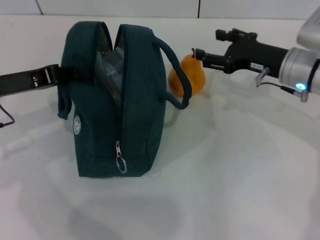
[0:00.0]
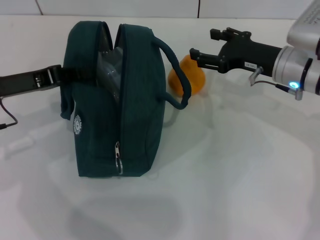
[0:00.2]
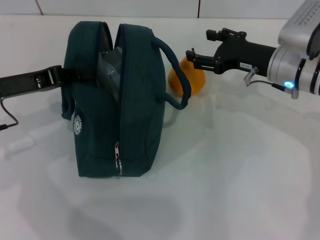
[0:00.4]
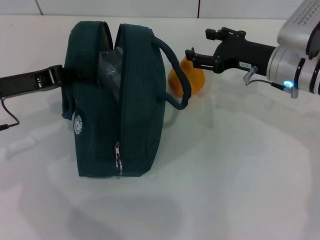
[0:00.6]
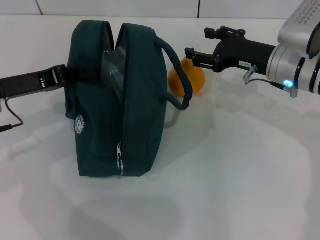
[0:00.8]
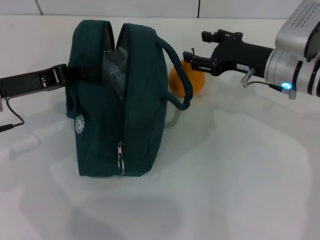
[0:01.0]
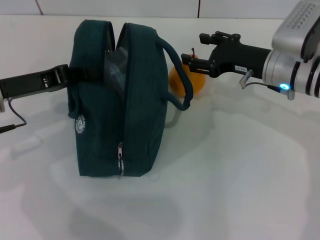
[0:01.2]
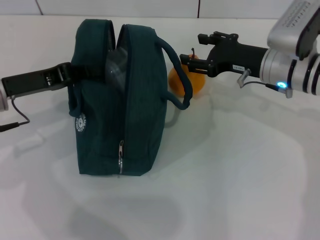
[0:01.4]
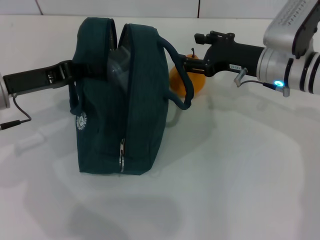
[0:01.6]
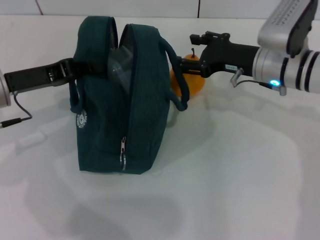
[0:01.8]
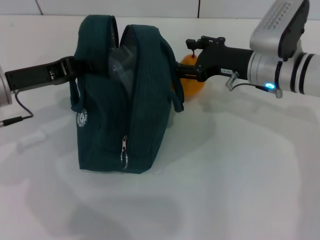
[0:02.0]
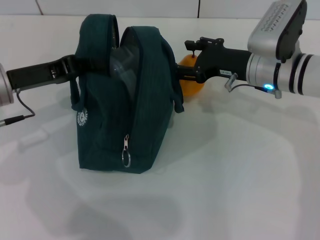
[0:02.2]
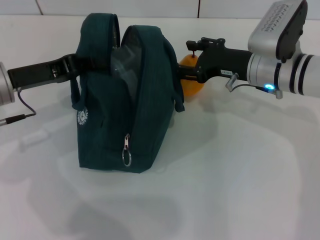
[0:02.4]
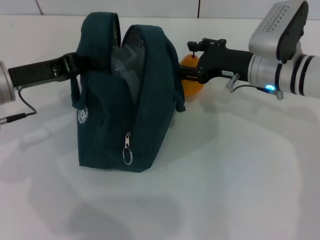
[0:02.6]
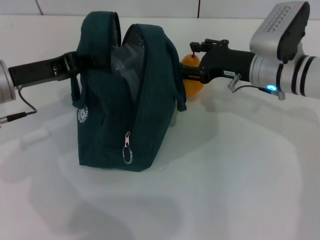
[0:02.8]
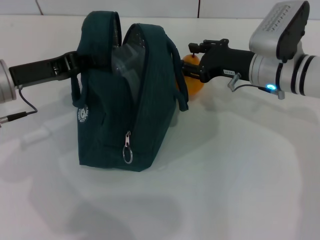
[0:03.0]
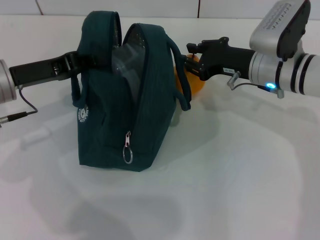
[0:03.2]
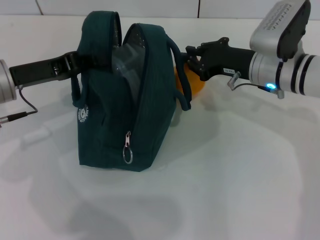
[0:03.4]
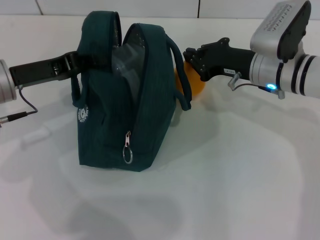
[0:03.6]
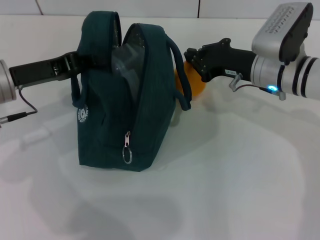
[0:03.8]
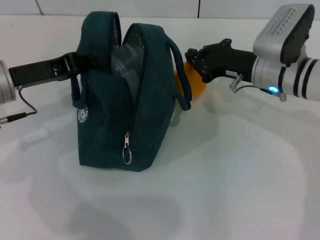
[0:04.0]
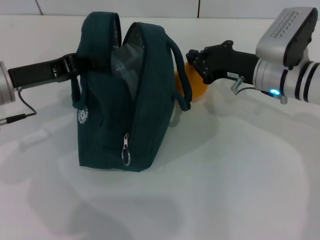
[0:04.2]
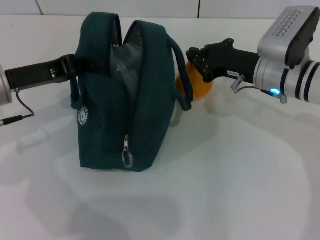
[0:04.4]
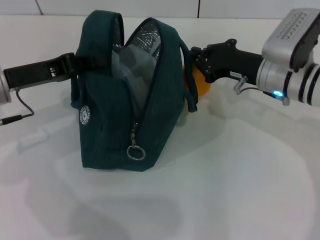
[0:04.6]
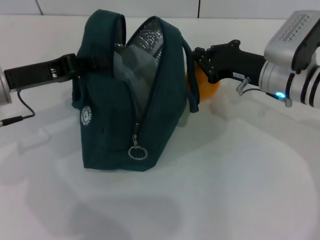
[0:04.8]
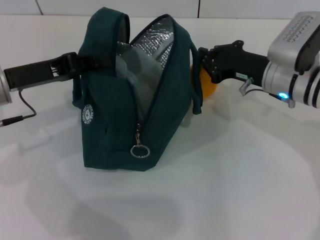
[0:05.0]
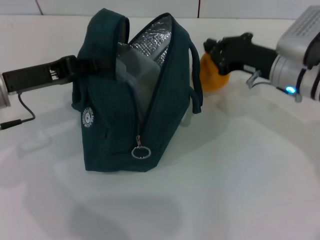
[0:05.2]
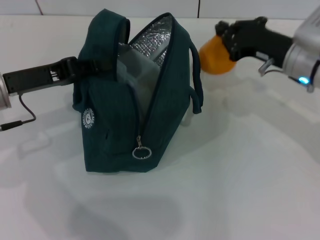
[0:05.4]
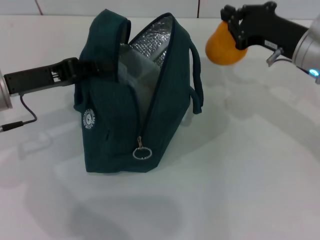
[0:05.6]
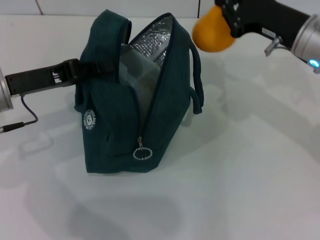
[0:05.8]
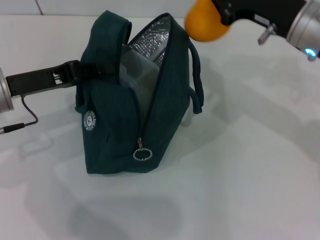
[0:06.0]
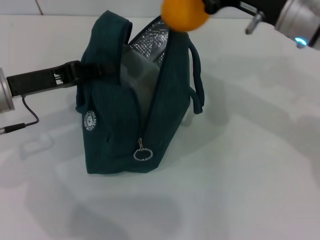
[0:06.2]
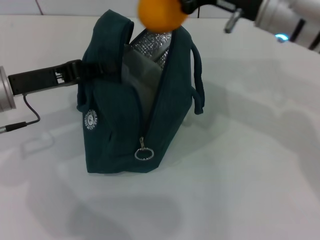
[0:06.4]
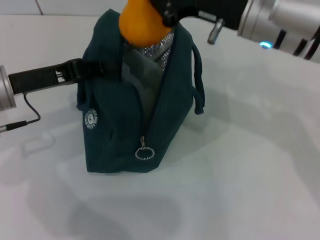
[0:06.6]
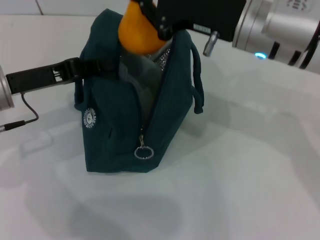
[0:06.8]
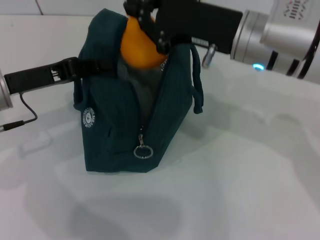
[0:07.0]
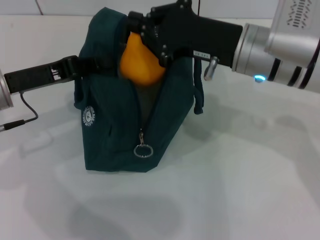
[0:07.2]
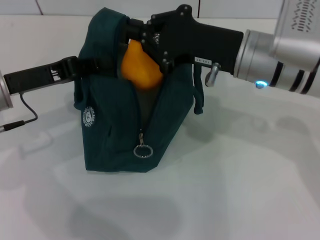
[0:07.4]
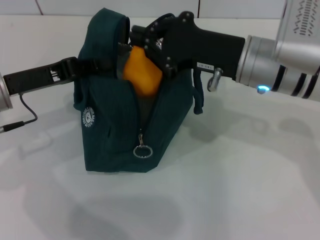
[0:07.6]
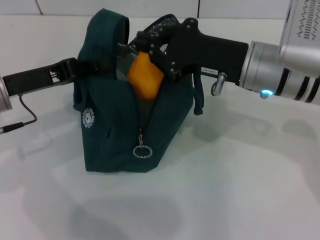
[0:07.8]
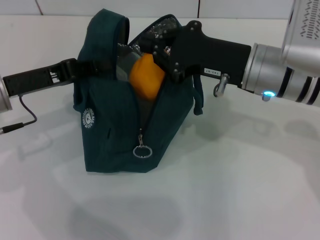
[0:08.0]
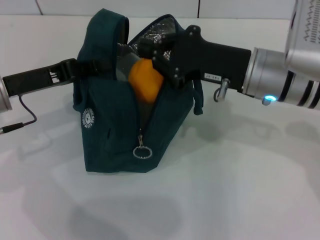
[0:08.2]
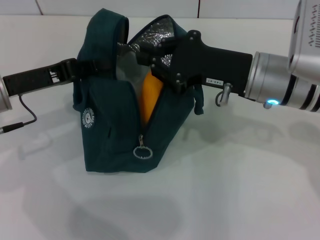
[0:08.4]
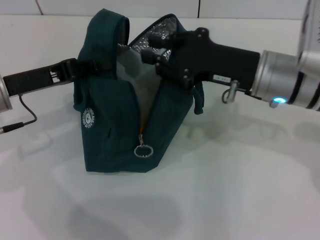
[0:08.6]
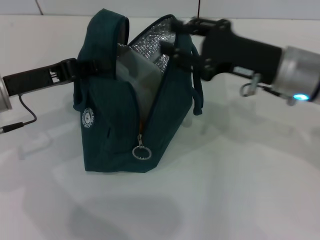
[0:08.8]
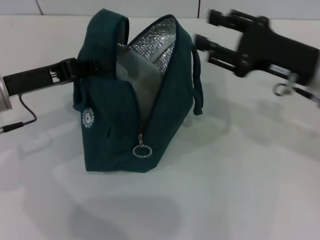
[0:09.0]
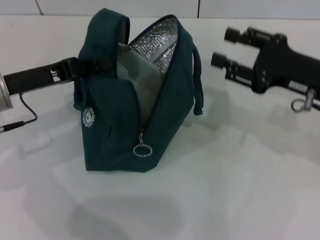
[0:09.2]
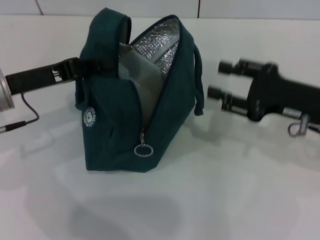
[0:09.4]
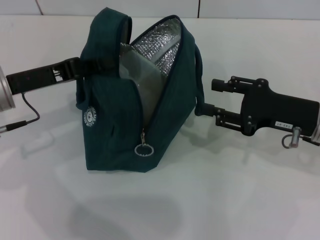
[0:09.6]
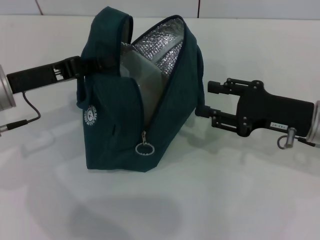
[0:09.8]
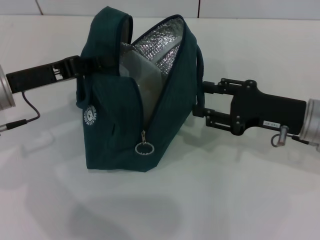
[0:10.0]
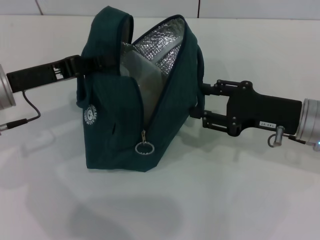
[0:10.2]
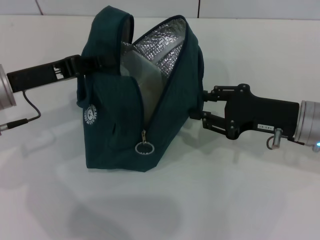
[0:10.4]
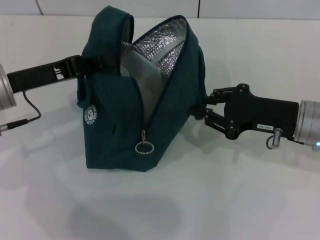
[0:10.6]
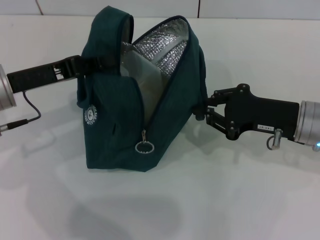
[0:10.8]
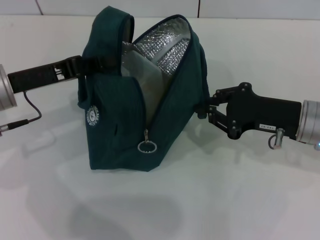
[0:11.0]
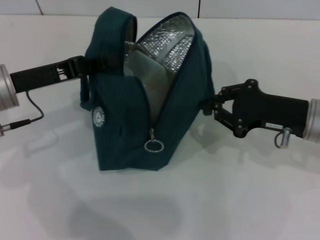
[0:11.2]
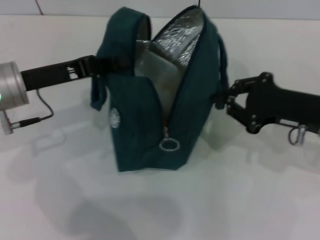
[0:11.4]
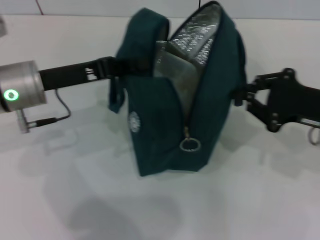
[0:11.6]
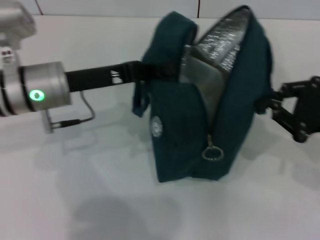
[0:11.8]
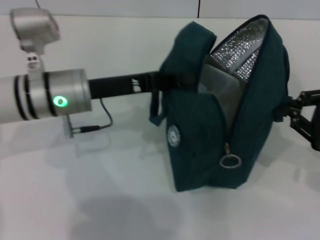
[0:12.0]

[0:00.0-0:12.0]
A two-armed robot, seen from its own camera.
Step, 0:00.0 to 0:03.8: Grab the pear with your right hand.
0:00.0 to 0:03.0: There are only small adjustments of the grippers.
0:03.0 to 0:04.4: The right gripper closes up.
0:04.4 to 0:06.0: The right gripper shifts roughly 10 cm upward.
0:06.0 to 0:07.6: The right gripper shifts about 5 cm to the left.
0:07.6 to 0:09.0: The right gripper travels to the right by some 10 cm, and opens.
0:09.0 to 0:10.4: The right gripper moves downward, about 5 cm.
0:10.4 to 0:12.0: Both grippers travel together to the right, about 10 cm. The right gripper closes its fingers.

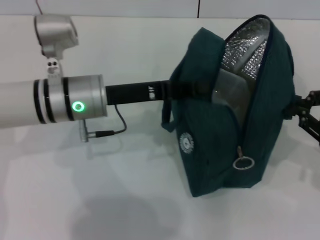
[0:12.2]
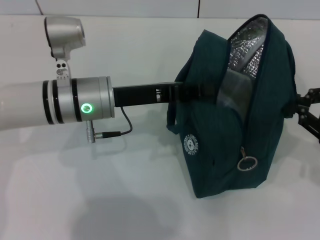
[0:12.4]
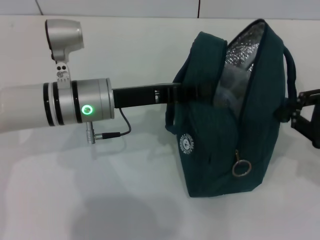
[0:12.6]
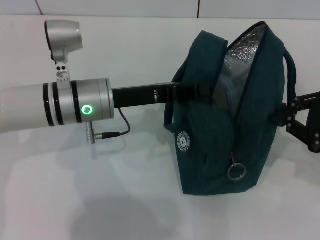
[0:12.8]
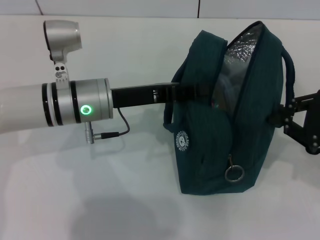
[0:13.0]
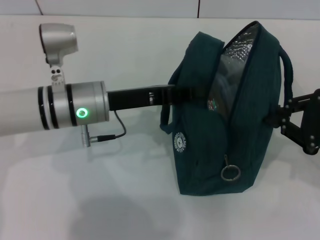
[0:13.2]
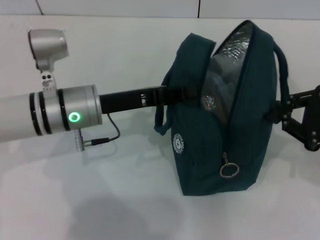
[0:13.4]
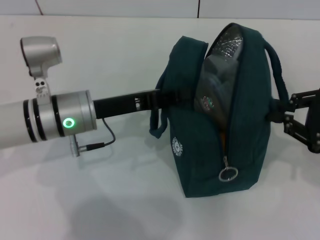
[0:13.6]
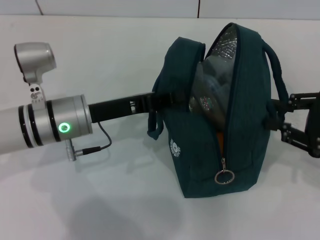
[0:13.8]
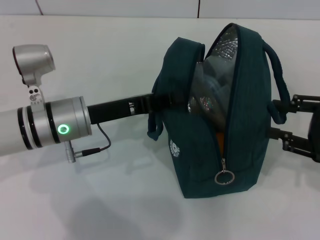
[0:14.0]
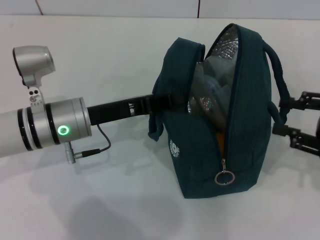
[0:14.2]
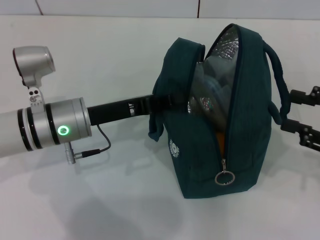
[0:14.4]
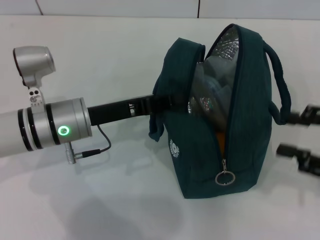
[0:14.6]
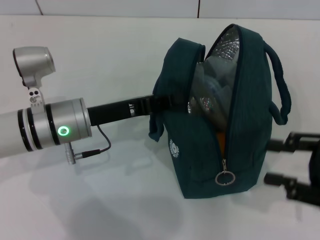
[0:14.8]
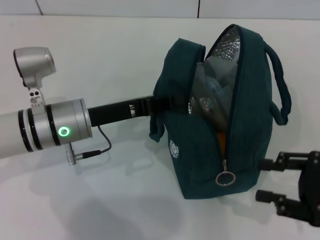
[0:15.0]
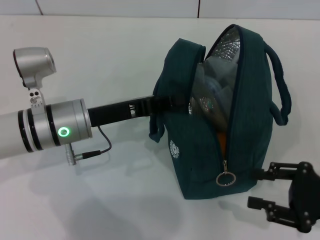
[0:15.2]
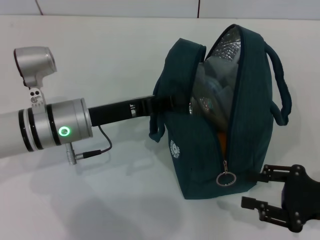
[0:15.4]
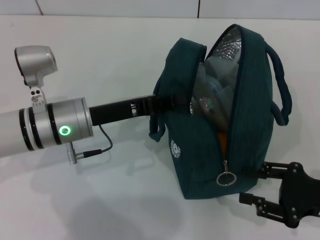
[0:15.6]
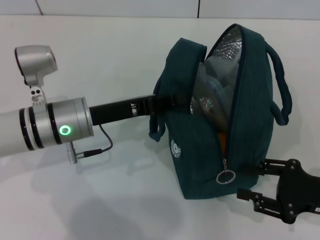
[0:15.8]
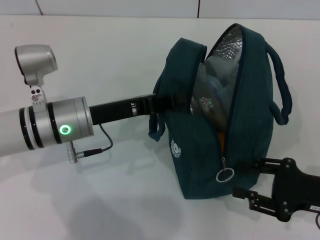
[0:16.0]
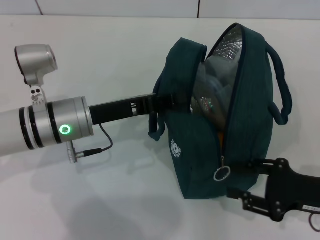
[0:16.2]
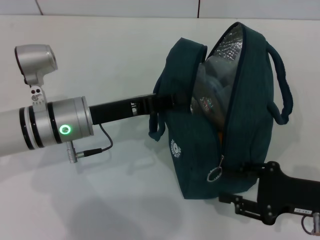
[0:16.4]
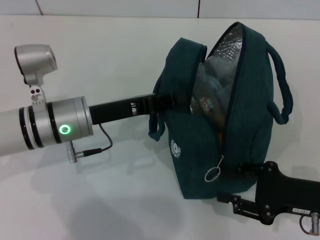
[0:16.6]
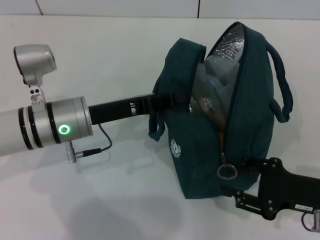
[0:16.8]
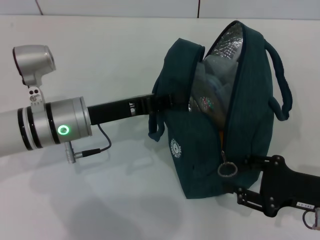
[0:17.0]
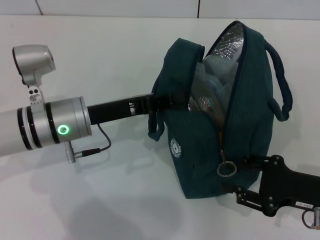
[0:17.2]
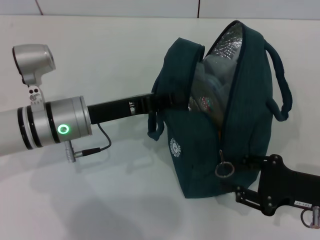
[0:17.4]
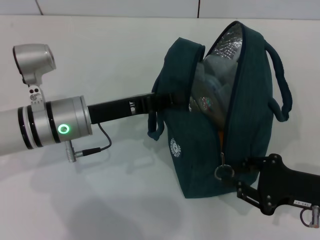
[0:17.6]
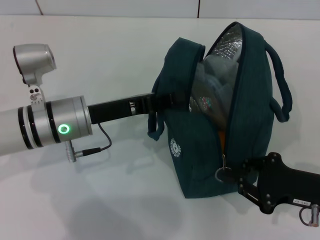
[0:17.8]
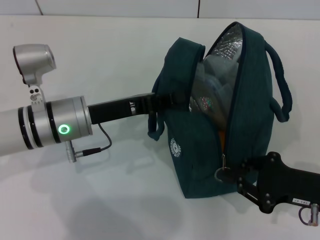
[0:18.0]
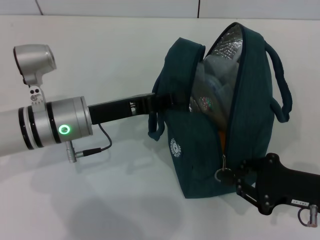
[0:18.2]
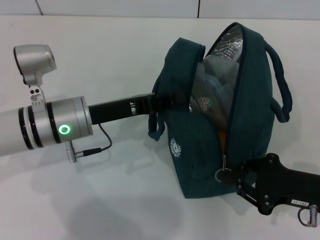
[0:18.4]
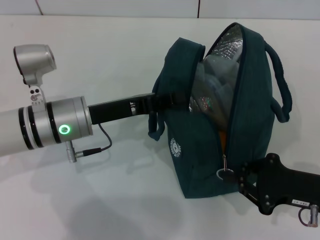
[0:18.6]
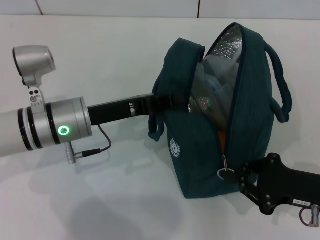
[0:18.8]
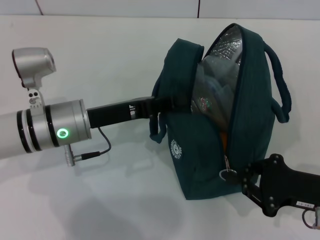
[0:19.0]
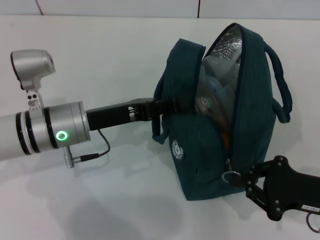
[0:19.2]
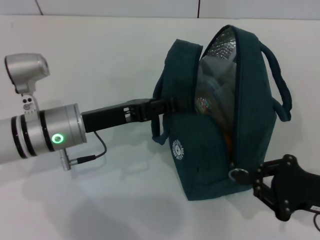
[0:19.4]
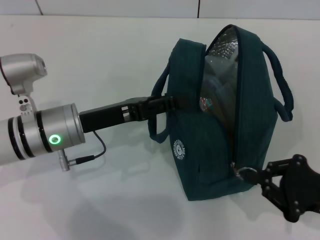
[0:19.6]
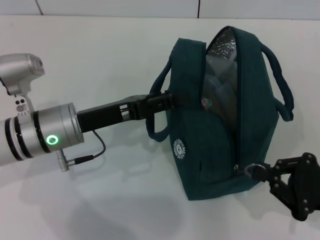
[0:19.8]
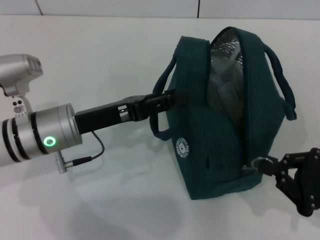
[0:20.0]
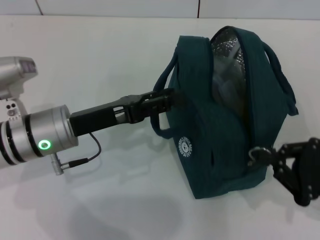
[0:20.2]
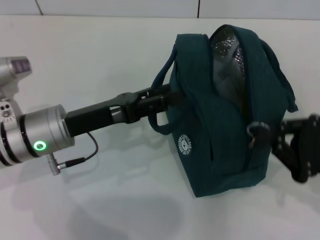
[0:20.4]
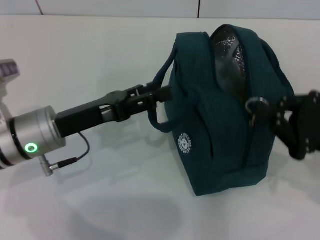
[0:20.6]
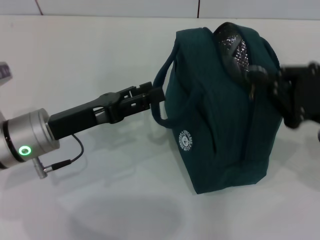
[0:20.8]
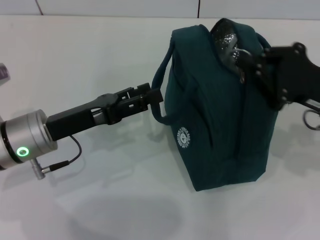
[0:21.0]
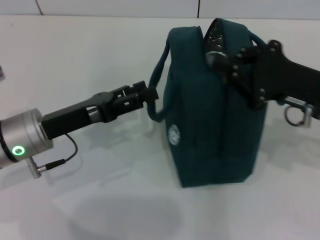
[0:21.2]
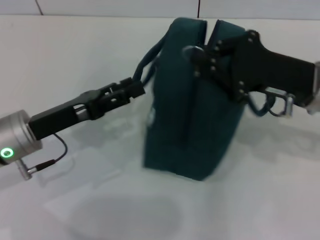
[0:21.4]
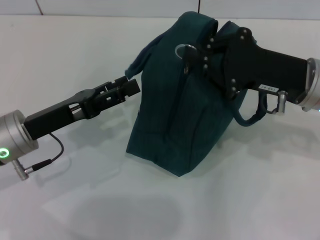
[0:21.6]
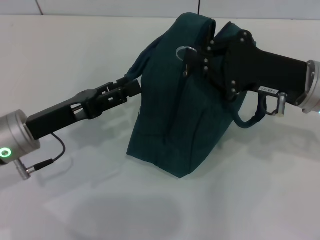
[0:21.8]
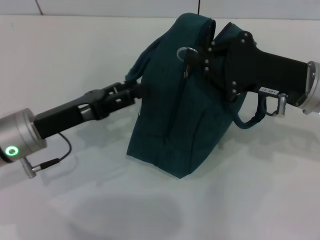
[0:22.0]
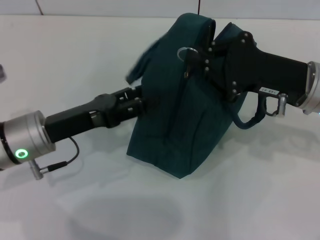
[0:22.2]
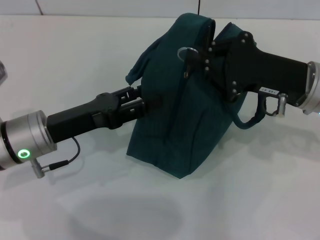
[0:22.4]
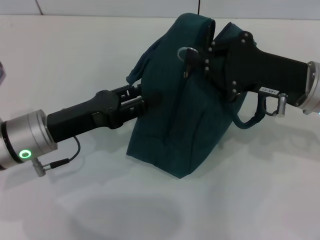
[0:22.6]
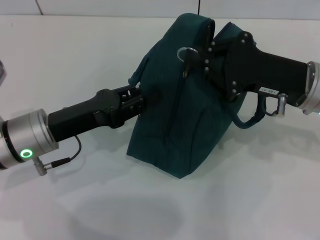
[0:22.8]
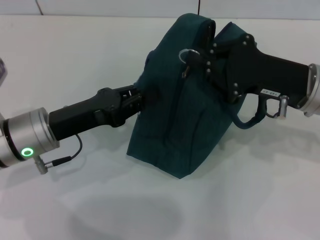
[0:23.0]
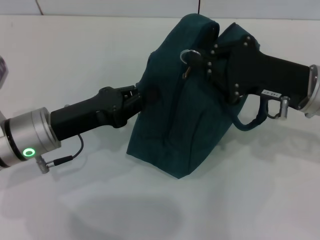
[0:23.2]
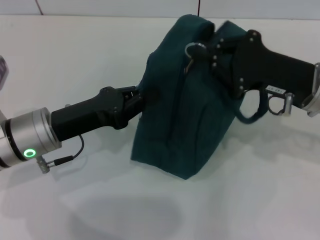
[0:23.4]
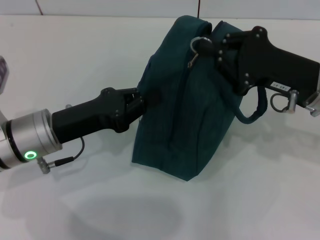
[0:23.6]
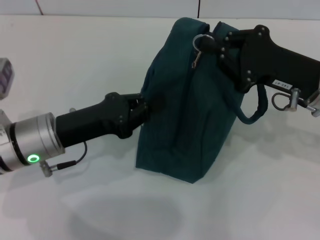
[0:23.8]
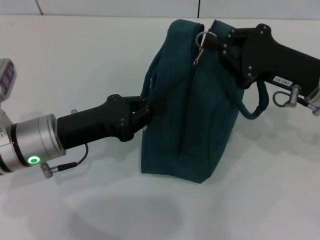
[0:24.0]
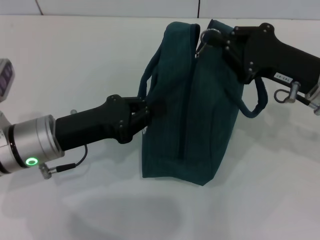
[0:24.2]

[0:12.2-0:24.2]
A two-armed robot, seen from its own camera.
Step, 0:14.0 to 0:20.2: Hold the lunch bag with your left hand.
0:13.8 to 0:15.2: The right gripper heads downward and backward, covering some 10 cm, and opens.
0:15.2 to 0:16.6: The grippers move only a little.
0:16.6 to 0:18.2: The right gripper closes.
0:18.2 to 0:19.8: The left gripper opens.
0:19.8 to 0:21.2: The right gripper is displaced forward, upward and to the left by about 15 cm.
0:21.2 to 0:22.6: The grippers stay close to where they were, moving slightly.
0:22.6 to 0:24.2: The left gripper closes its fingers.
